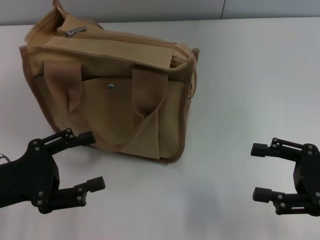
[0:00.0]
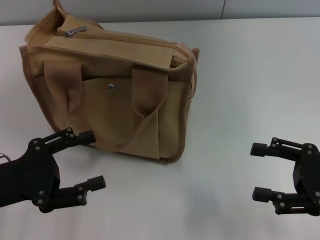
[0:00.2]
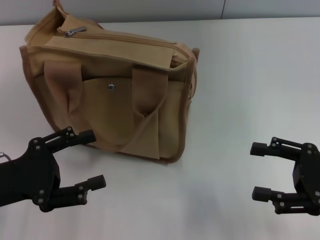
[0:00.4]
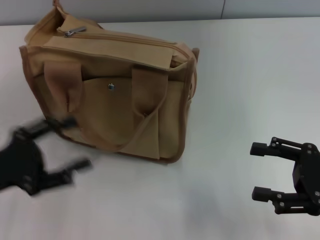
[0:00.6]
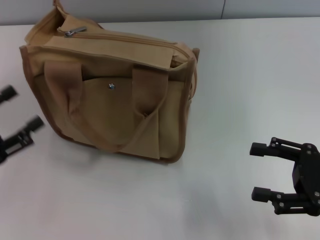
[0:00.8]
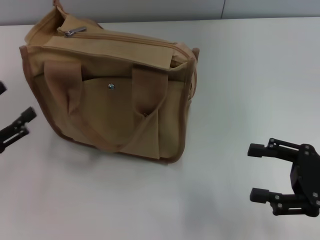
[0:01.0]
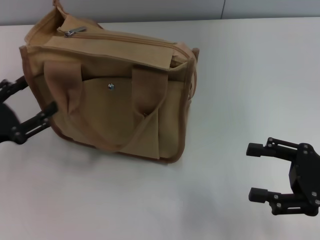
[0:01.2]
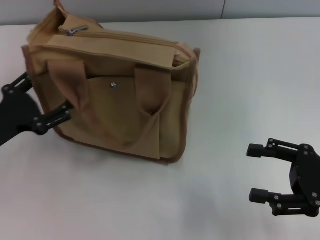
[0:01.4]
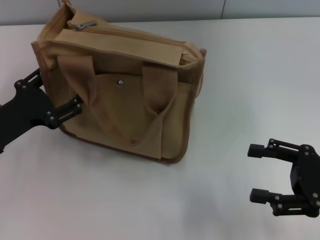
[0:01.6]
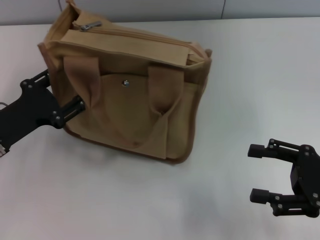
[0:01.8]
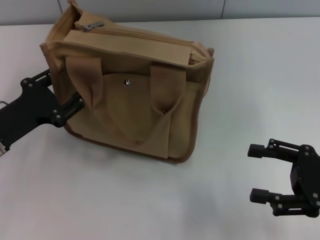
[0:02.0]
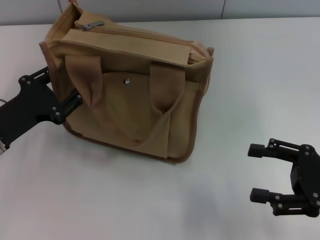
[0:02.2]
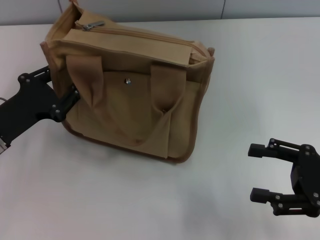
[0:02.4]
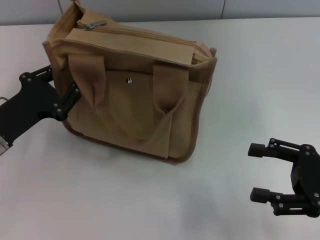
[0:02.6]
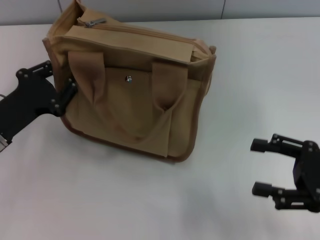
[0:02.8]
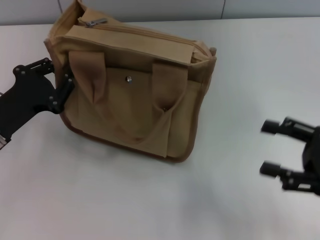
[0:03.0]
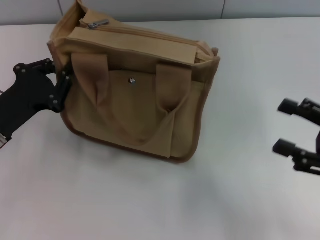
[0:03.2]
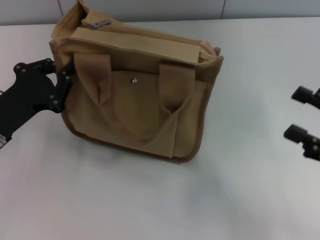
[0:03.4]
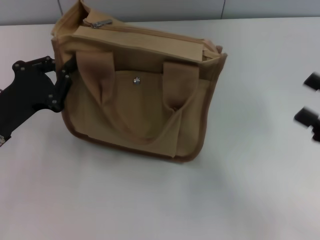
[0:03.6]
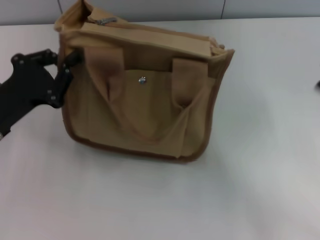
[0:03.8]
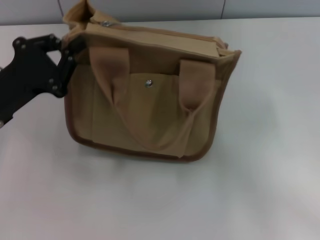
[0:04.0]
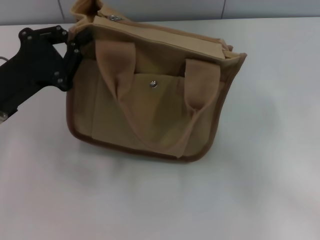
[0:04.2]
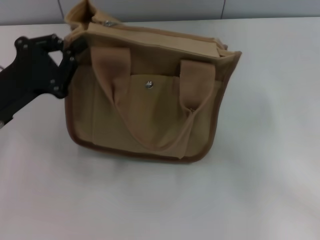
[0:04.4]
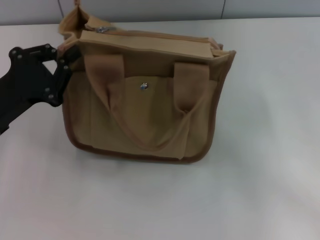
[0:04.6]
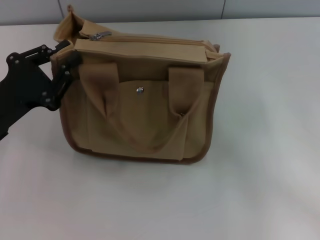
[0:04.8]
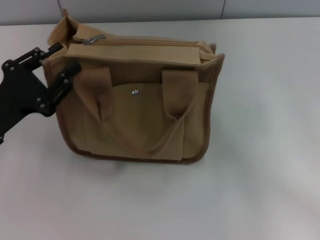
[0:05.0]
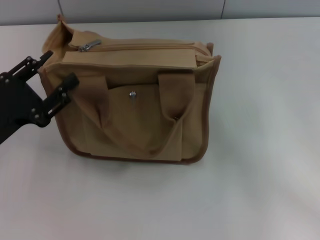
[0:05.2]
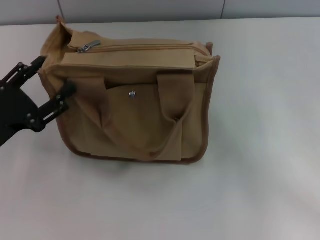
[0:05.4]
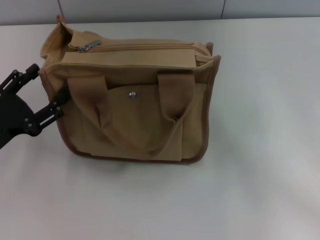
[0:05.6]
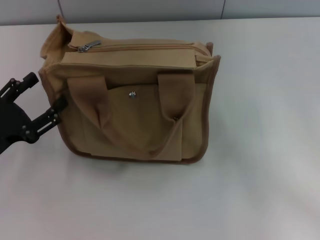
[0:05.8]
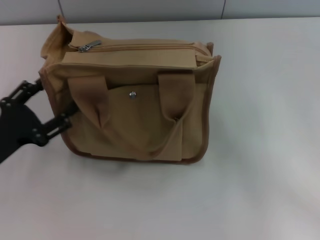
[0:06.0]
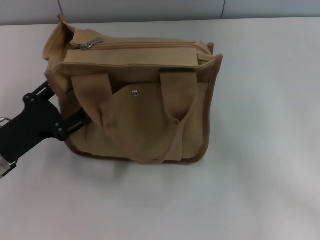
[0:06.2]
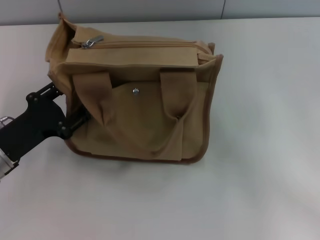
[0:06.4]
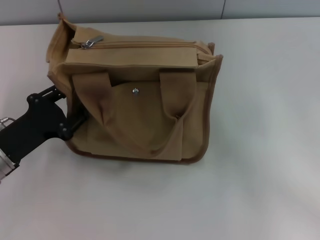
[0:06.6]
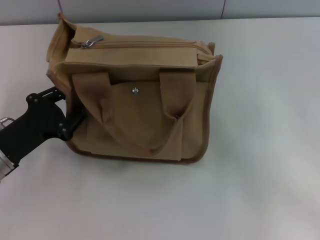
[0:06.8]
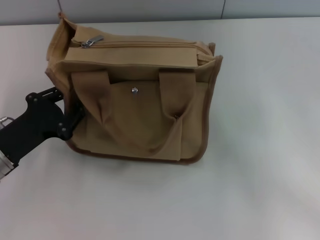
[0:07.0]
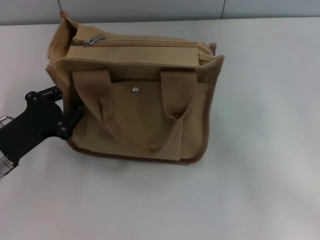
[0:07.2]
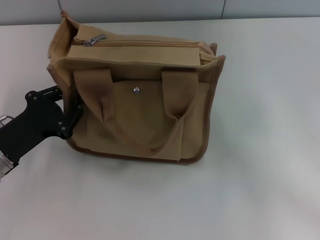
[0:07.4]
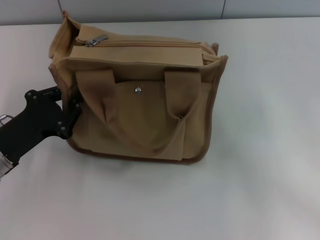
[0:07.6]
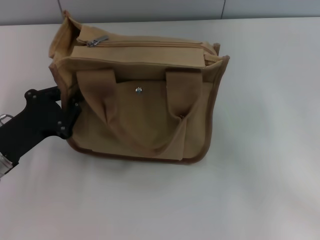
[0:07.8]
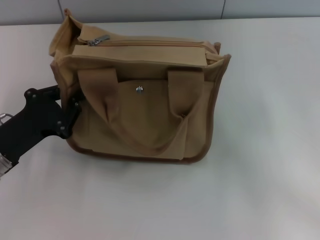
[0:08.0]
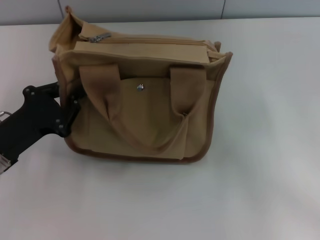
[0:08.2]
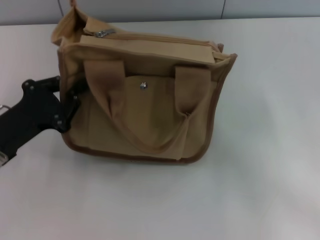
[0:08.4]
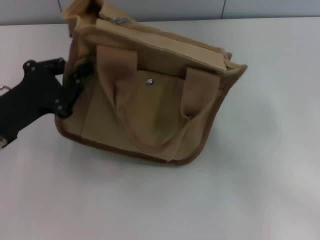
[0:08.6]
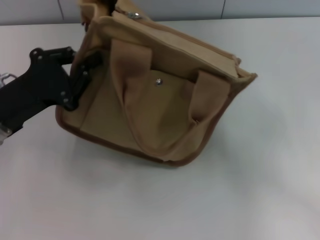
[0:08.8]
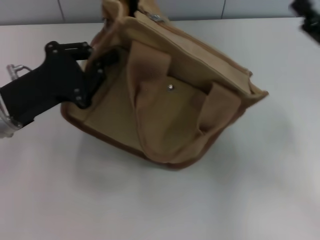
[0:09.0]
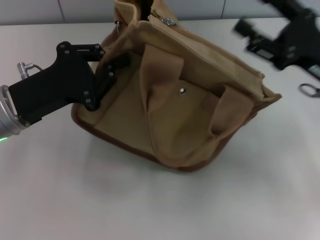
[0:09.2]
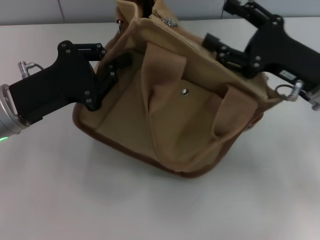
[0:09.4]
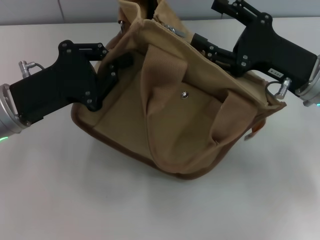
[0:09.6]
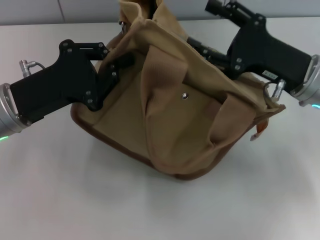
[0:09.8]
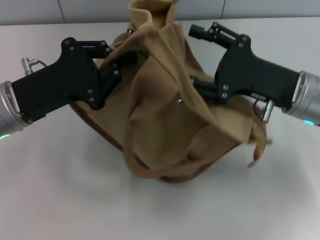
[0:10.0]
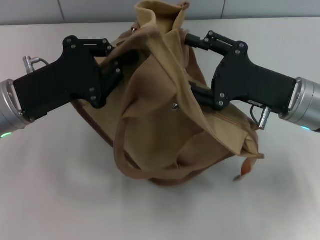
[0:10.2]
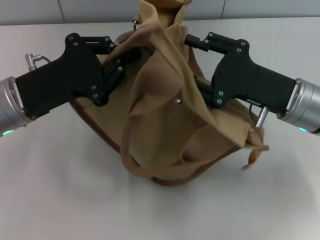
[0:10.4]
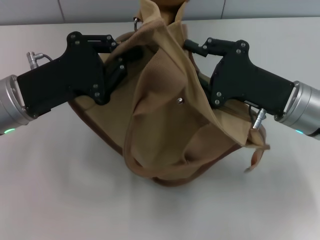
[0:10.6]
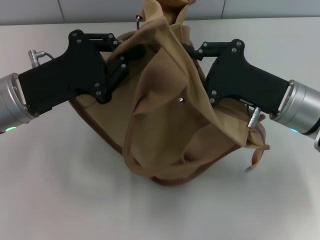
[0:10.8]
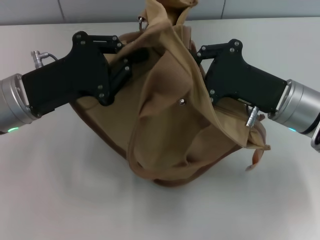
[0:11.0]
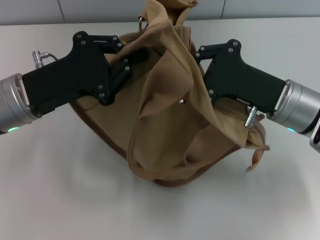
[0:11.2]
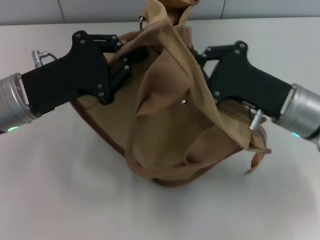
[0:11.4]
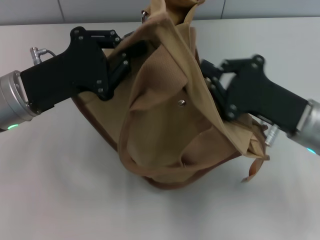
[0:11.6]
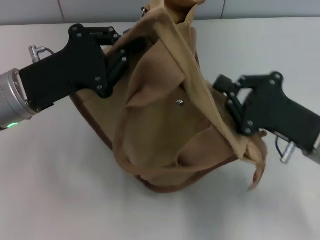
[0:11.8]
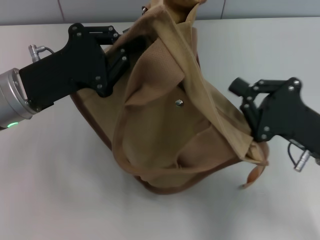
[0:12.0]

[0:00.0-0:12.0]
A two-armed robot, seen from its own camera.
0.0 to 1.6 s: The left gripper heads forward, covering roughly 5 cm.
1.6 to 3.0 s: The left gripper closes up.
3.0 to 4.4 s: The right gripper shifts approximately 5 cm forward.
4.4 to 6.0 s: The left gripper heads backward, covering some 5 cm, and opens up.
6.0 to 7.6 s: The left gripper closes its fingers.
7.6 to 9.0 s: The left gripper heads upward, covering about 5 cm; the right gripper changes place by about 5 cm.
9.0 to 10.4 s: The right gripper shifts about 10 cm to the left.
10.4 to 12.0 s: The right gripper heads backward, covering about 5 cm, and closes up.

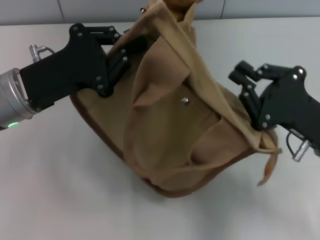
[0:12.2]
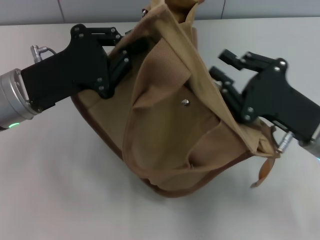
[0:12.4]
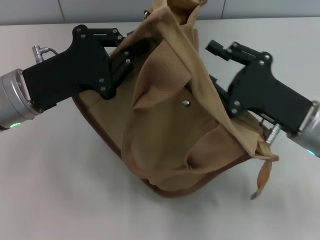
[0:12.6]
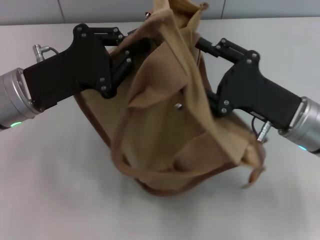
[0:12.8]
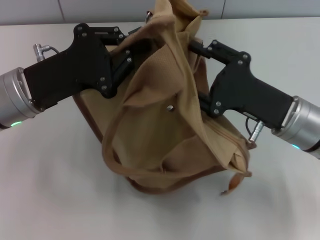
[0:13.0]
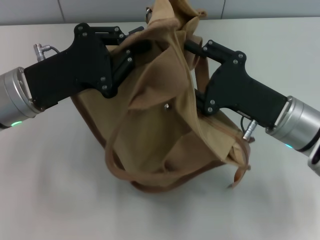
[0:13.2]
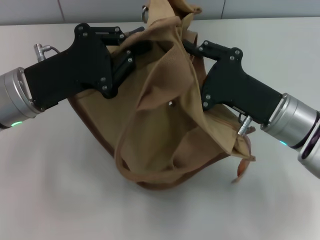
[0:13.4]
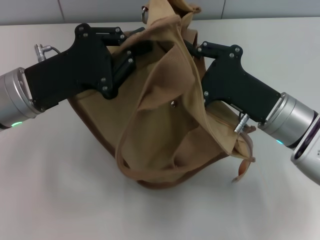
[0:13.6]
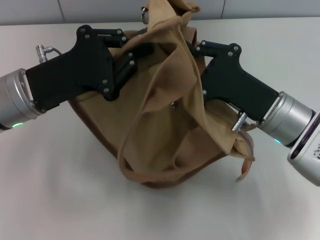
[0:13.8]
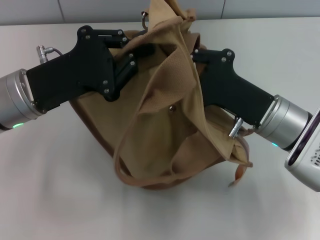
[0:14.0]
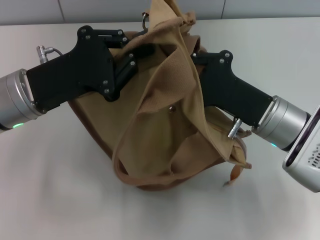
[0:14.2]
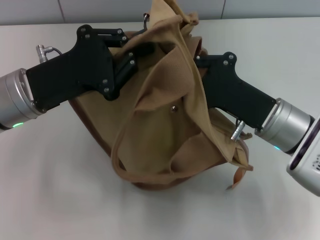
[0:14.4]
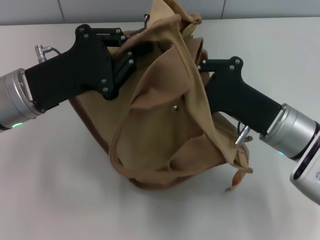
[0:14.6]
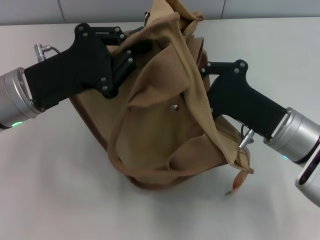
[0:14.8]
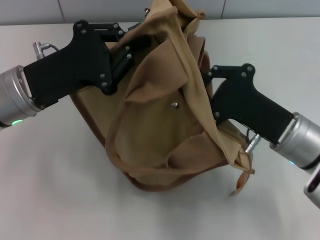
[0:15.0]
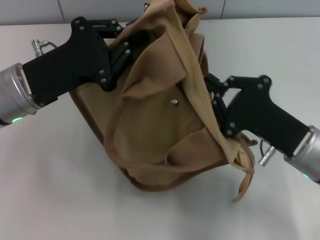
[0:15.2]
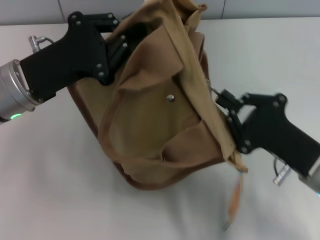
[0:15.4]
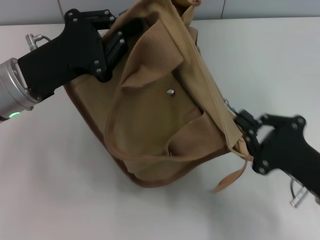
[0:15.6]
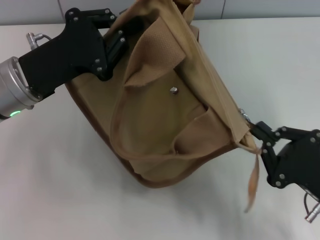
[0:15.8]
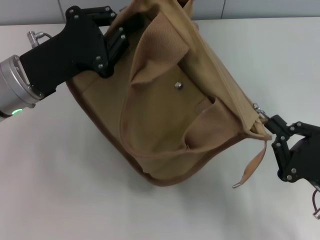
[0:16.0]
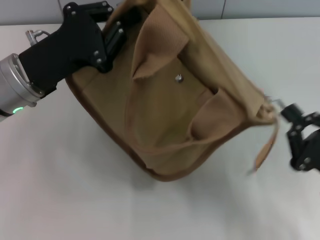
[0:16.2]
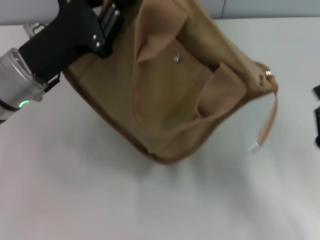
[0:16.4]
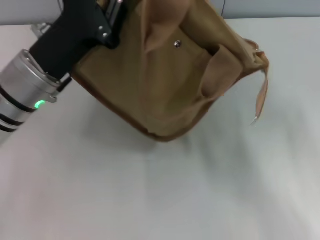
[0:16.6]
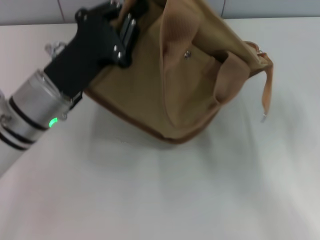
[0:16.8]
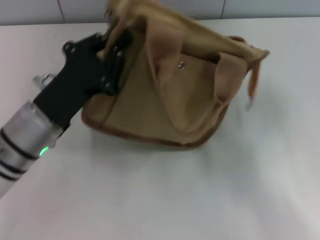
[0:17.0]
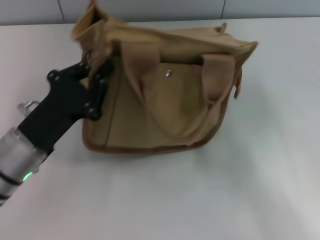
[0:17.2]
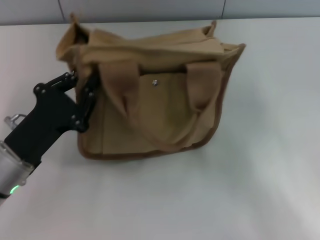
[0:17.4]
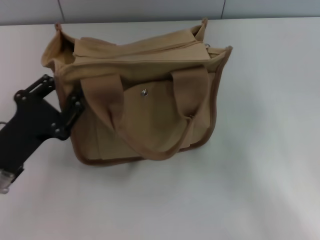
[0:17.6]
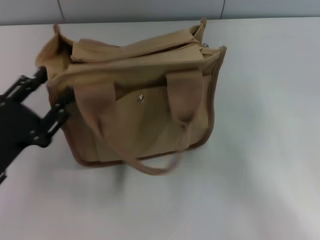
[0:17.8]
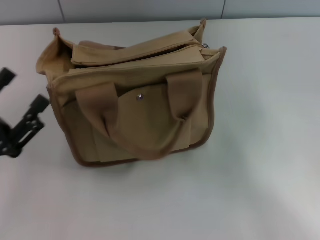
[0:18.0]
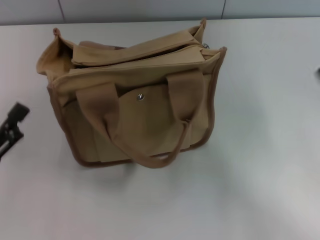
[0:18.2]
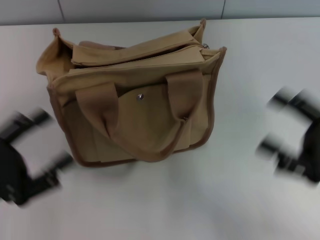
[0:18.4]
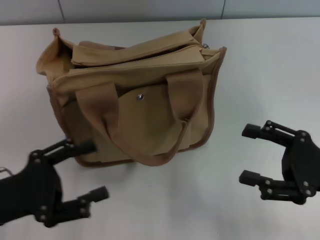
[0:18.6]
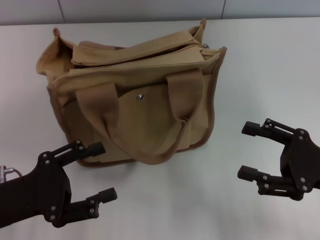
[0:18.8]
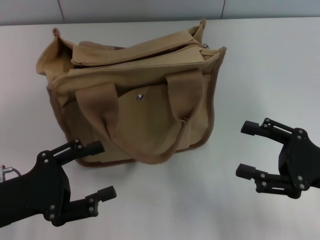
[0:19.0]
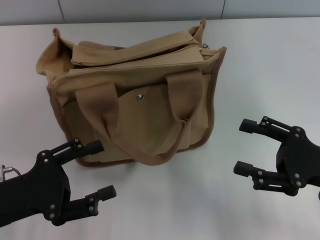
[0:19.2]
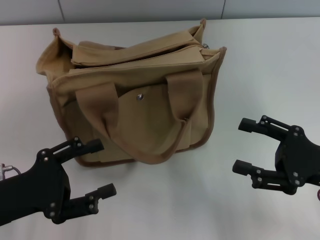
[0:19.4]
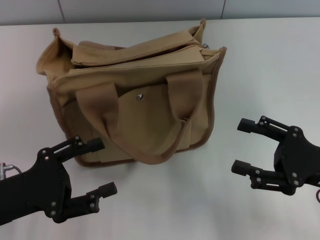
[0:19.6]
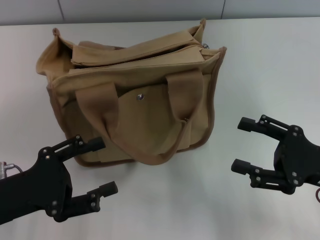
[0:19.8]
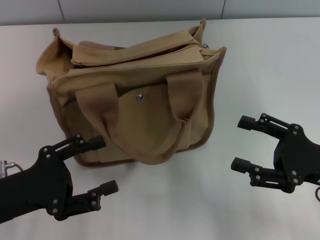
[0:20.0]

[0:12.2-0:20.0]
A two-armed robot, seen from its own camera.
Step, 12.2 to 16.2 s: Pull open the zipper with your right hand.
Step, 16.6 to 17.6 s: Grab the bag with your left hand.
12.2 to 13.8 s: The right gripper goes approximately 5 cm to the left, and opens, then closes once more.
13.8 to 15.4 s: The right gripper heads backward, covering some 5 cm.
15.4 to 16.8 s: The right gripper shifts about 5 cm to the right, and opens its fingers.
16.8 to 18.4 s: The right gripper opens up. The left gripper heads backward and to the left, covering approximately 20 cm, and opens its fingers.
18.4 to 20.0 s: The grippers make only small movements.

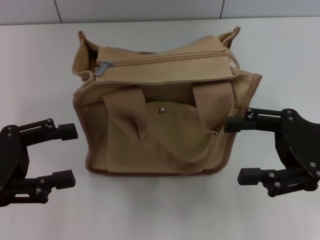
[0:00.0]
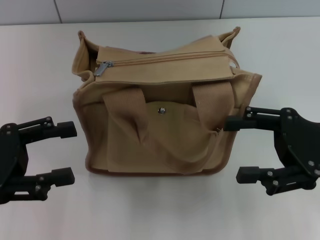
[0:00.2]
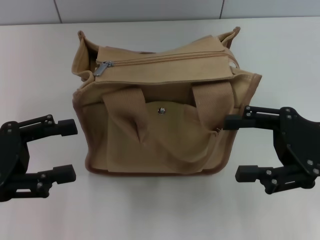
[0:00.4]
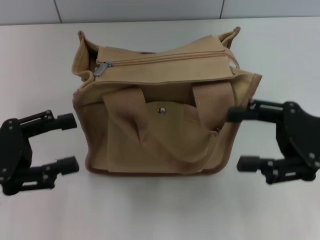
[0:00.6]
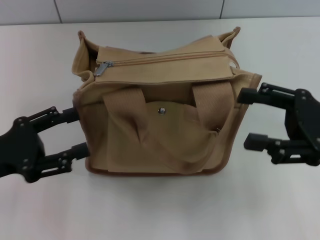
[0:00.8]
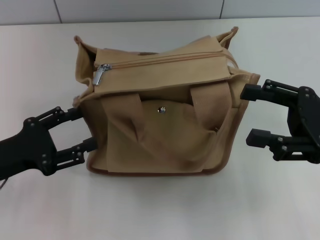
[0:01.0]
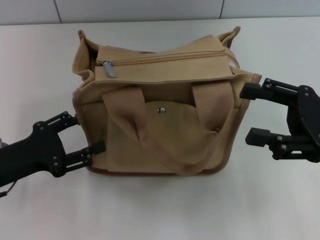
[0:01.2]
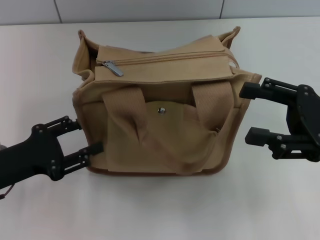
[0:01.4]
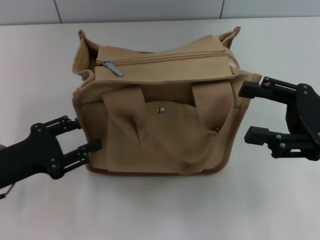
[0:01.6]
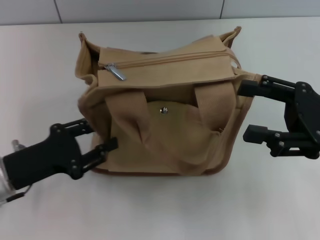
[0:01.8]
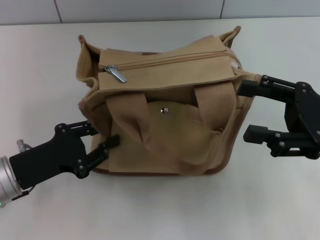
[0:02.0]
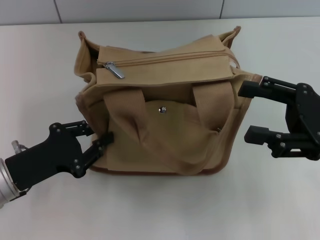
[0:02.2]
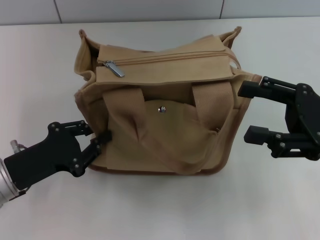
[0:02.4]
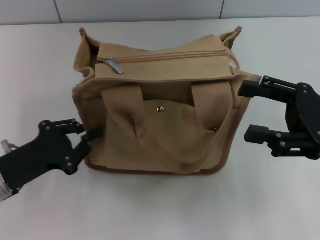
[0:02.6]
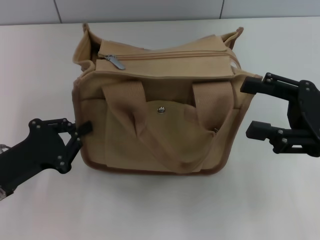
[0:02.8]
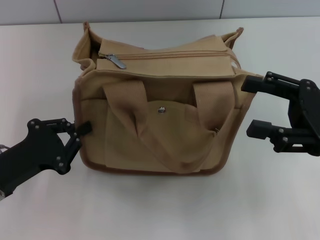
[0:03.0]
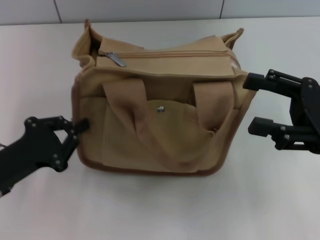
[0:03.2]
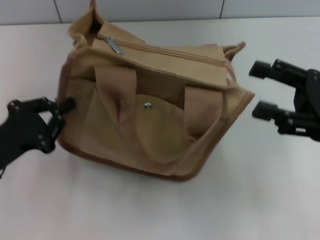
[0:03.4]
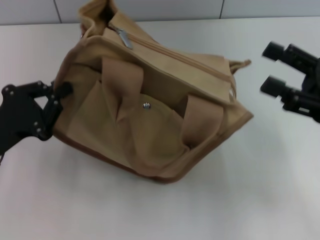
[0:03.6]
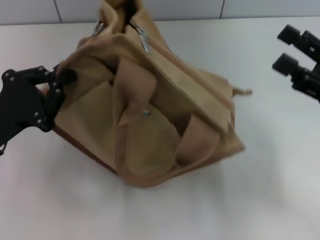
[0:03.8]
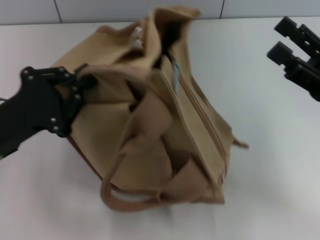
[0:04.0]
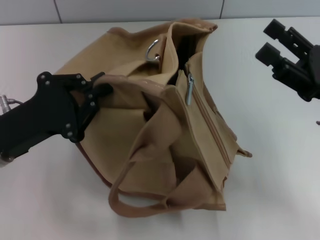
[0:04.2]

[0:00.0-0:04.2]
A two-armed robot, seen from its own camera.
0.0 to 1.4 s: The left gripper moves downward, about 5 cm.
1.4 to 2.8 s: The left gripper closes its fingers.
2.8 to 4.2 s: The left gripper moves approximately 5 cm.
